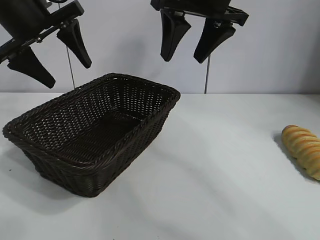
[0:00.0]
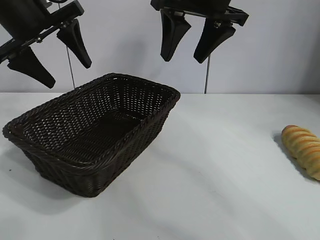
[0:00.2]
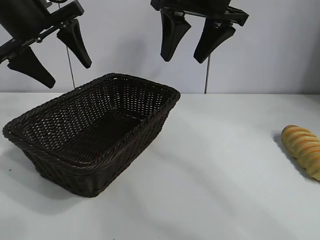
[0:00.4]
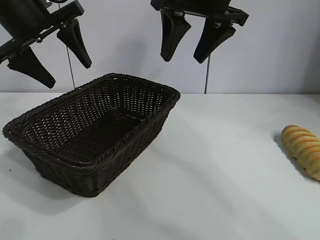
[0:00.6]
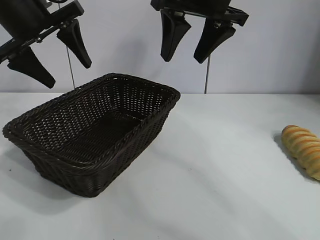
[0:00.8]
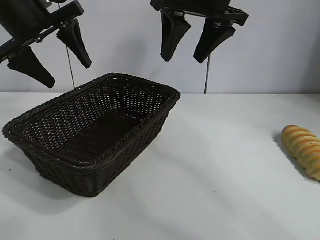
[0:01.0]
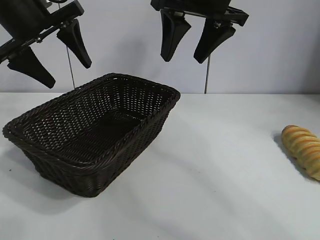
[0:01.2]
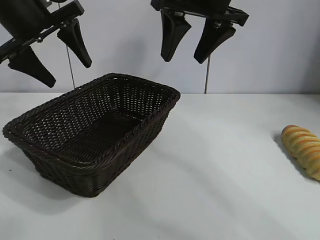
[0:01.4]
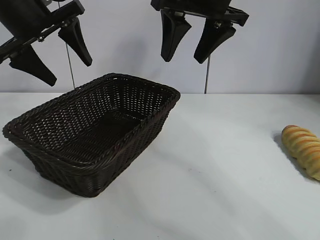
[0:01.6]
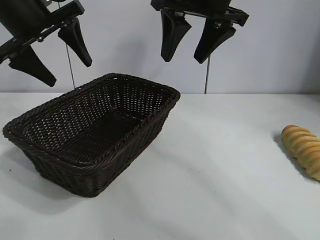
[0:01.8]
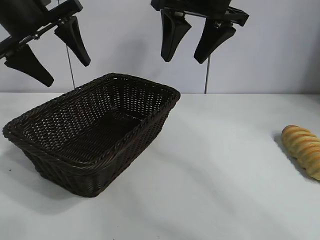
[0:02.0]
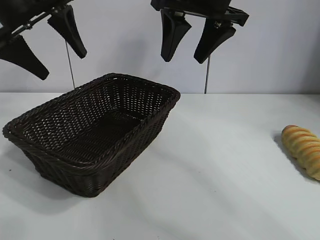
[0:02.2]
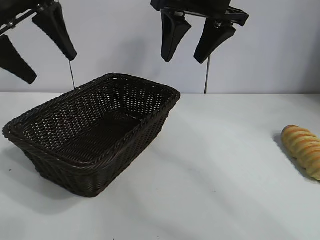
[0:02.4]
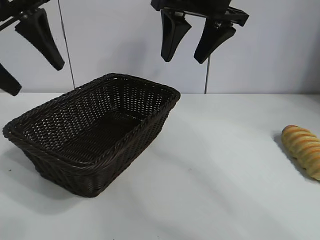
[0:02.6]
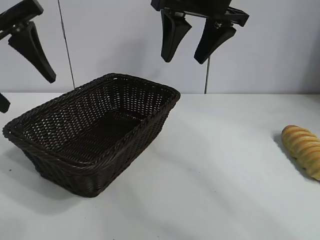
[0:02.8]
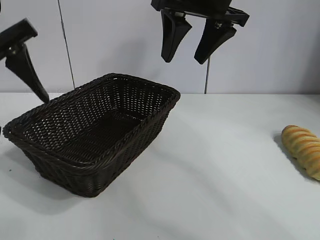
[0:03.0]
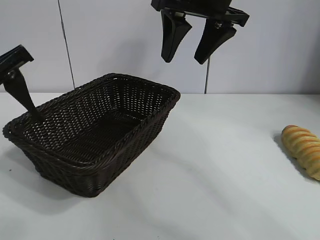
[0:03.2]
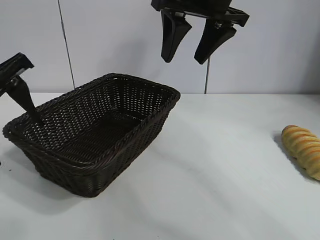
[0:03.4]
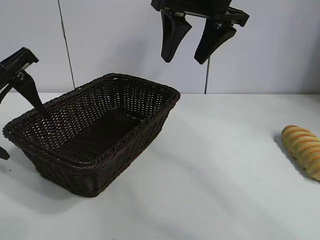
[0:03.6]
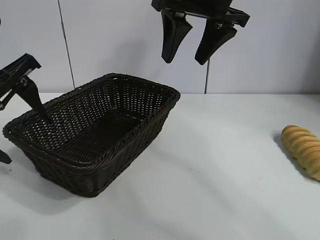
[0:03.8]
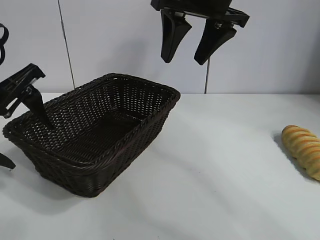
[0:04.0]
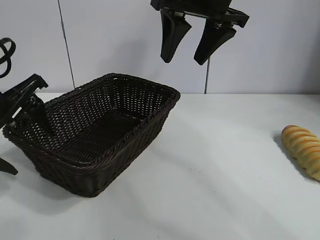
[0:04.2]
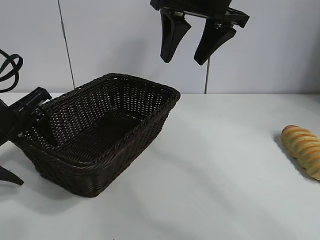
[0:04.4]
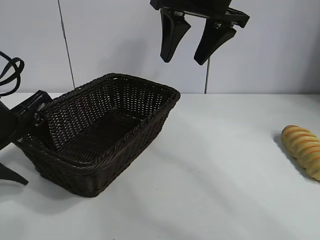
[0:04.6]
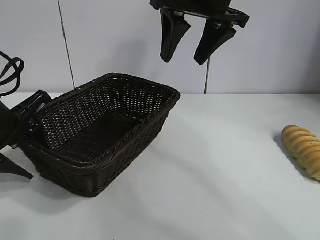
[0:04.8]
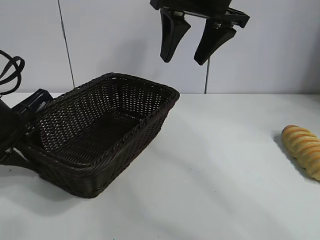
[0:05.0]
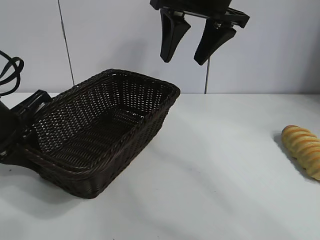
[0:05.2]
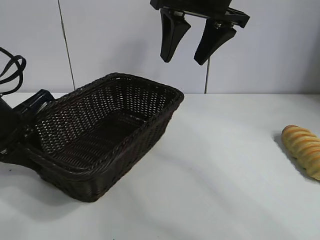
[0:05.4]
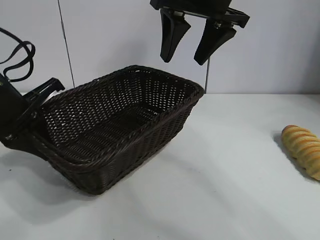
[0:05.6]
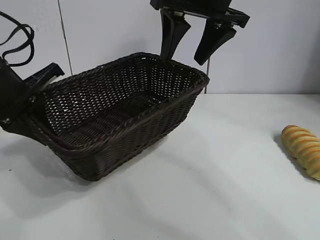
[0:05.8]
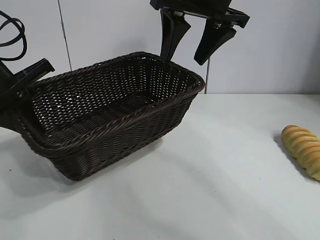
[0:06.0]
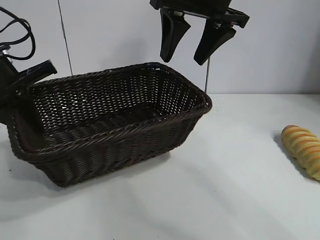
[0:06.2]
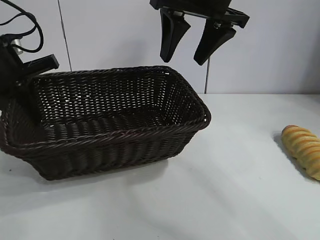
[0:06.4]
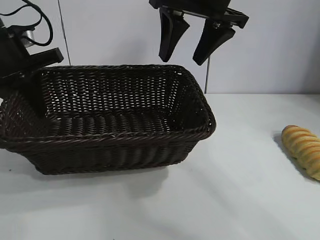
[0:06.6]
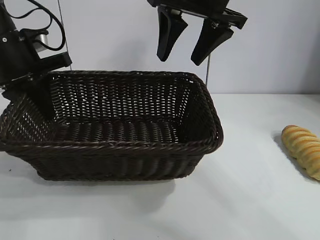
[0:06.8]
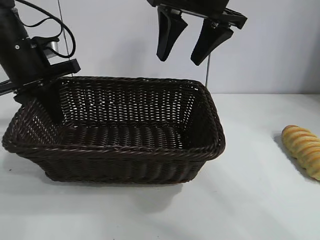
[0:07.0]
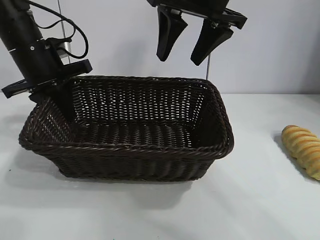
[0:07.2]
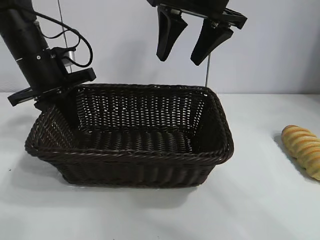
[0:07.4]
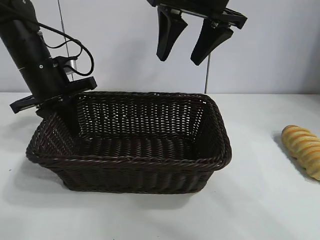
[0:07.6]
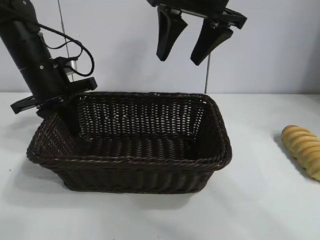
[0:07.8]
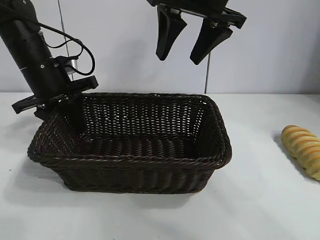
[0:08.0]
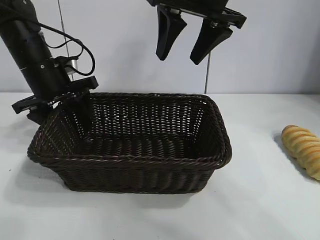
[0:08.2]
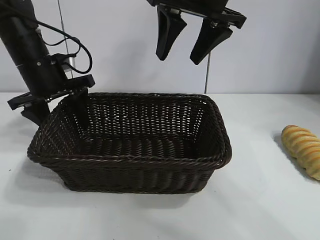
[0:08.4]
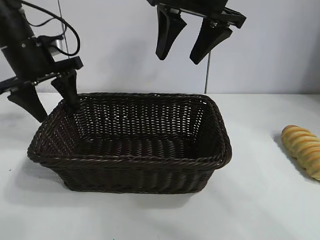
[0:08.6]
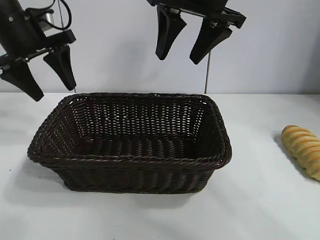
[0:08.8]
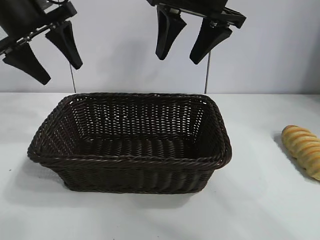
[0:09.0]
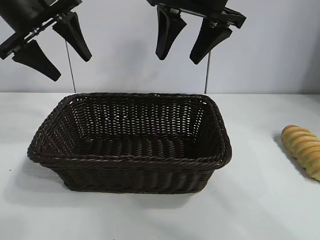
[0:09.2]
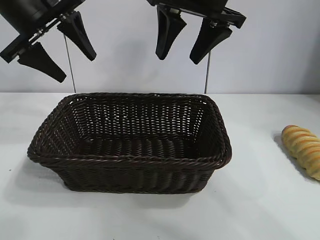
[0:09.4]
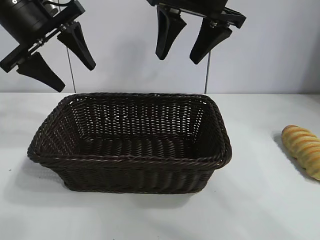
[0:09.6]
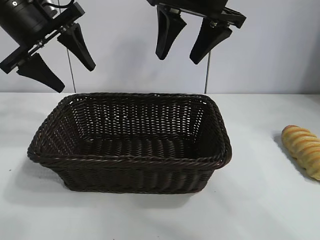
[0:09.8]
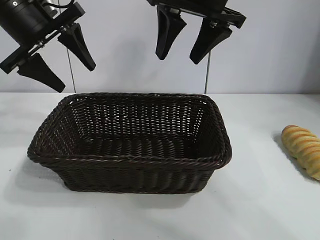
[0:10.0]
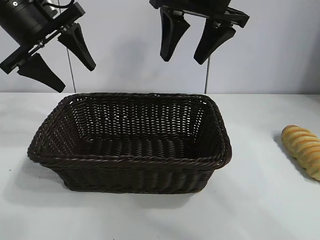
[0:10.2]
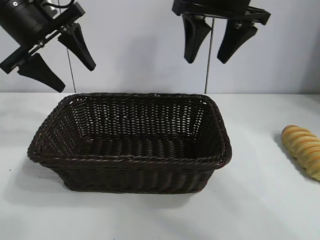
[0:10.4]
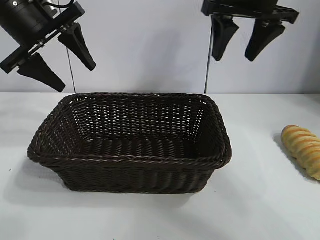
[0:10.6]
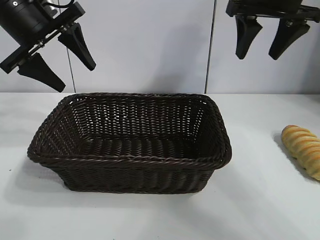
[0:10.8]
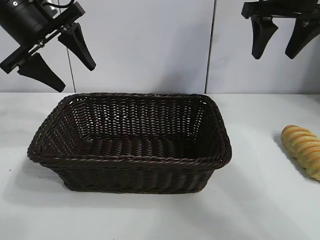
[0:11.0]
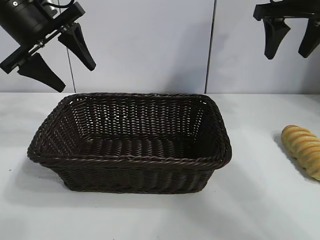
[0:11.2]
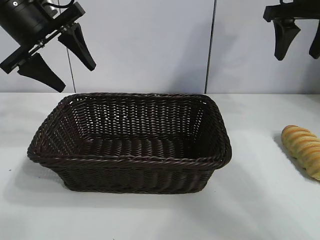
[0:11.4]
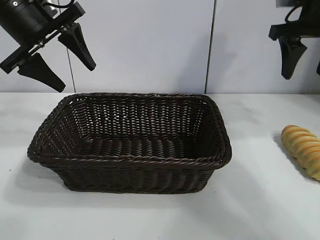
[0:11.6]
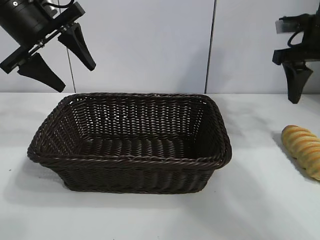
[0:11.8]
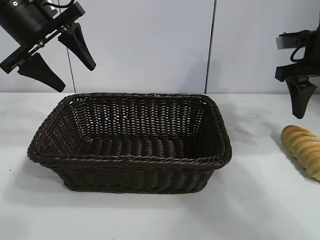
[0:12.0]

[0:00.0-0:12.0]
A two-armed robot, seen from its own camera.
Task of the whole recording: pick up the long bread and put it into the basket.
Step, 0:01.2 to 0:05.2: Grasp the basket with the left gripper.
Step, 0:05.4 to 0:08.2: Place the basket in the center of the table with the left gripper.

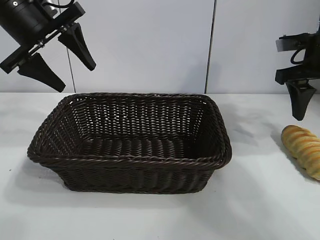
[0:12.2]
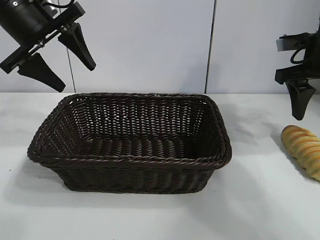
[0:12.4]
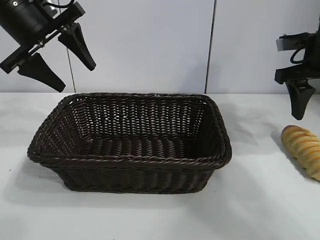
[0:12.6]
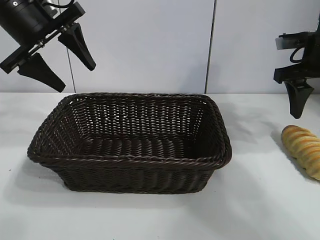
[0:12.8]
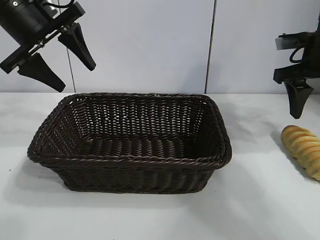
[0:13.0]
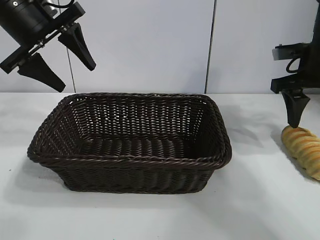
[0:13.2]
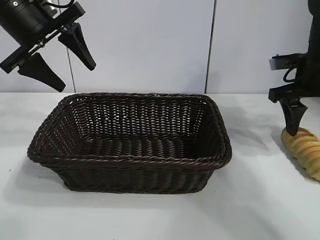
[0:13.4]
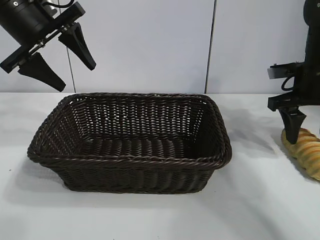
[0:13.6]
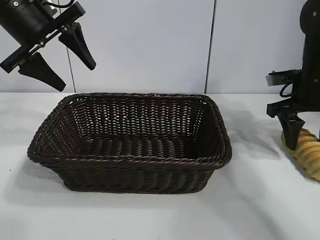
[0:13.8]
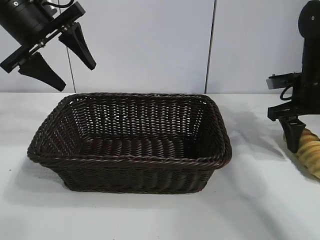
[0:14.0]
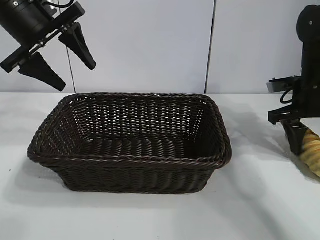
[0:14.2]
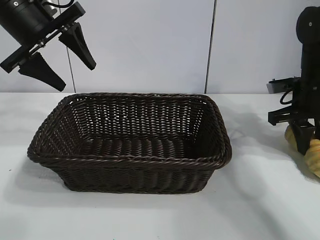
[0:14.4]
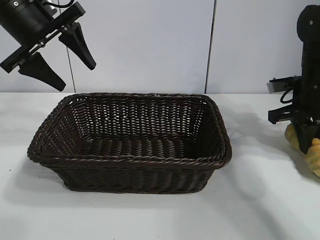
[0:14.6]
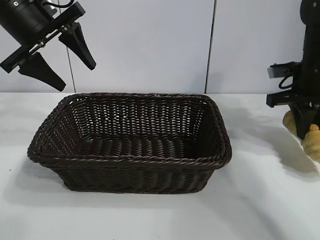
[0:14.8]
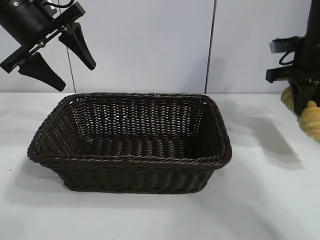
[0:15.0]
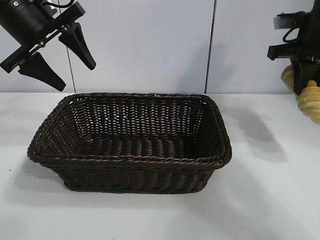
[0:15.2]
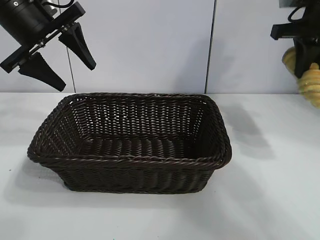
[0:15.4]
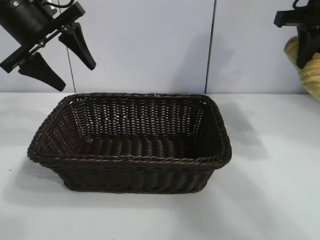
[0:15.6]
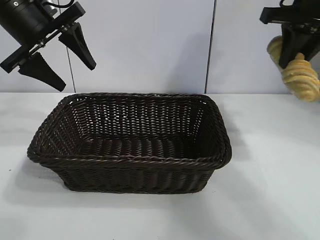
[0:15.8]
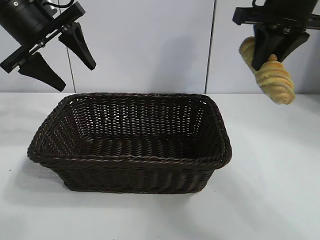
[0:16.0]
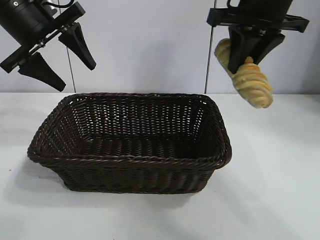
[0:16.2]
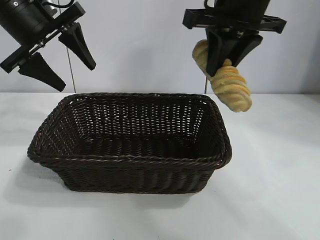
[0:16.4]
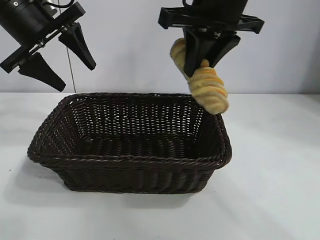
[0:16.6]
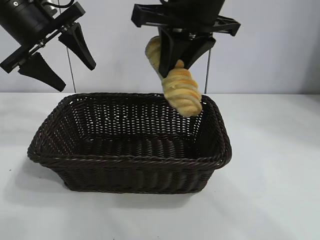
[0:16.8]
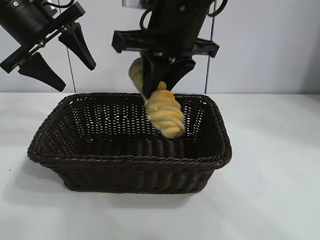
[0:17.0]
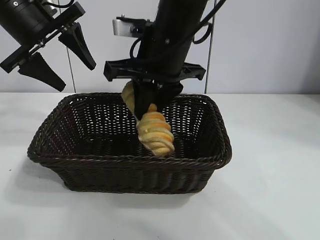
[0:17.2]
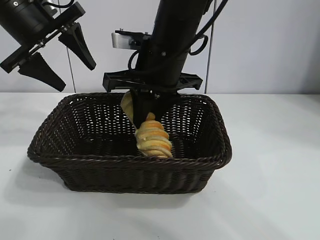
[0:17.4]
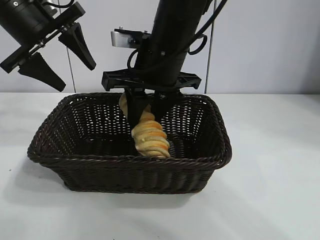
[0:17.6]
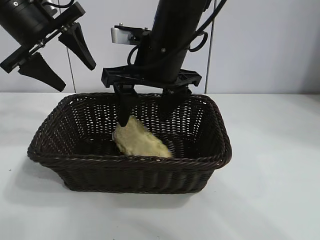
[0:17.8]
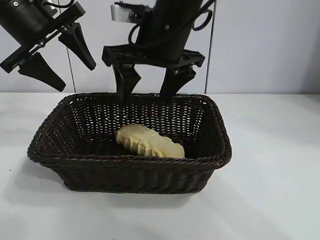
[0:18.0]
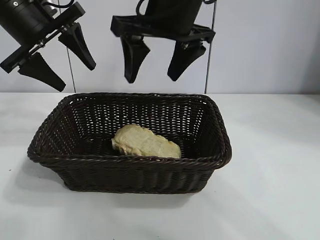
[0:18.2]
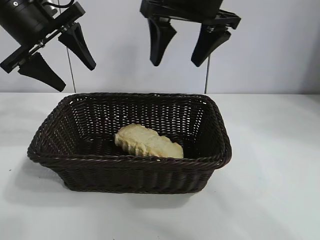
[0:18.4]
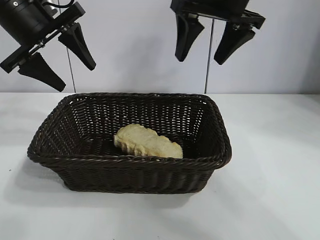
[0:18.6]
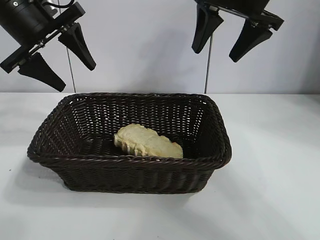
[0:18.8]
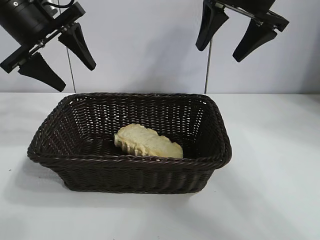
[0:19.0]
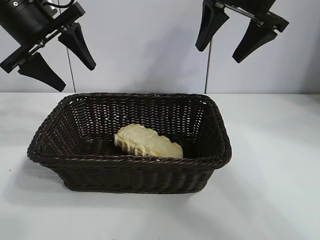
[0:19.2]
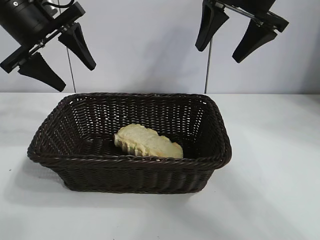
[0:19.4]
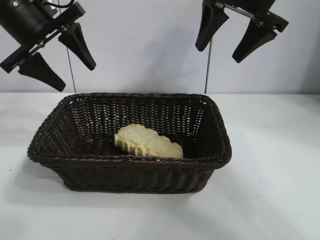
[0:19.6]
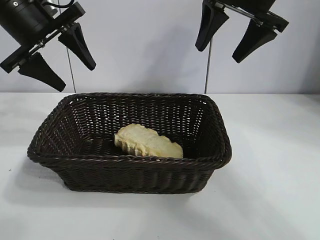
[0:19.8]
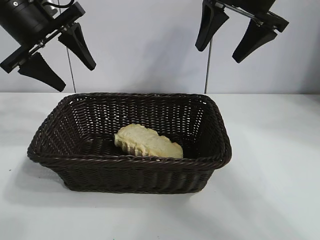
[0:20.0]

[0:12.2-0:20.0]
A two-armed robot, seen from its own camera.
Task of the whole recording: pick up the long bread and put it into the basket.
Step, 0:12.2 to 0:14.4: Grasp the long bread with right gripper.
Step, 0:14.6 to 0:18.0: Place the long bread in the basket with right gripper.
